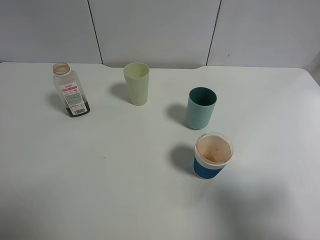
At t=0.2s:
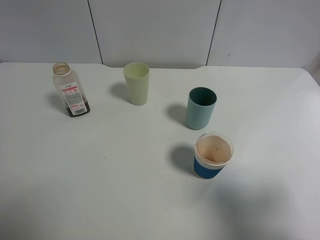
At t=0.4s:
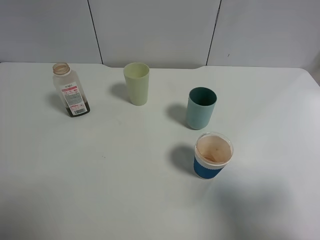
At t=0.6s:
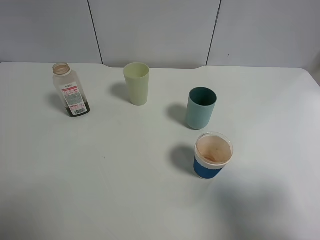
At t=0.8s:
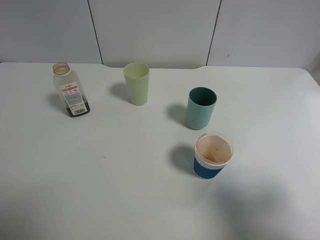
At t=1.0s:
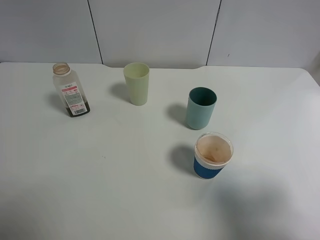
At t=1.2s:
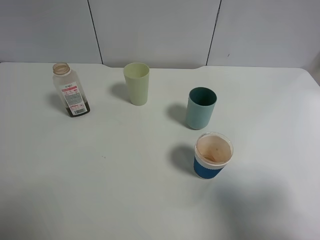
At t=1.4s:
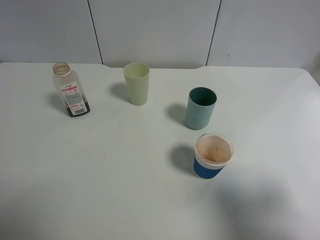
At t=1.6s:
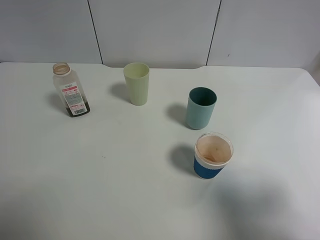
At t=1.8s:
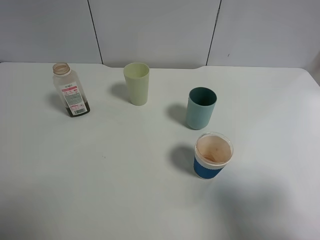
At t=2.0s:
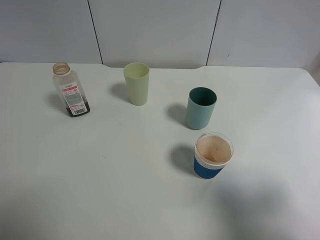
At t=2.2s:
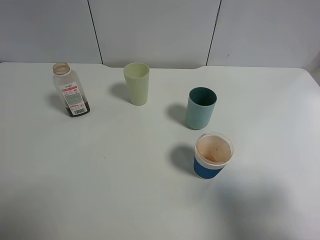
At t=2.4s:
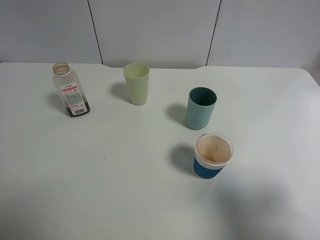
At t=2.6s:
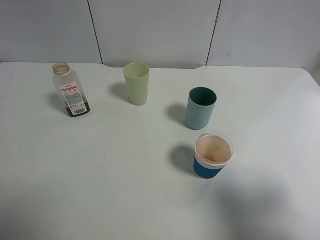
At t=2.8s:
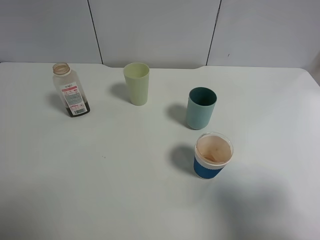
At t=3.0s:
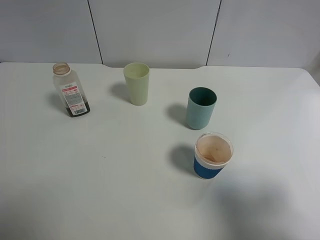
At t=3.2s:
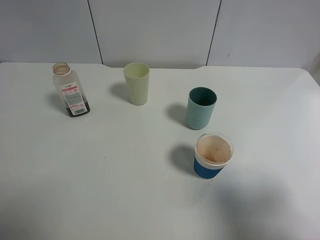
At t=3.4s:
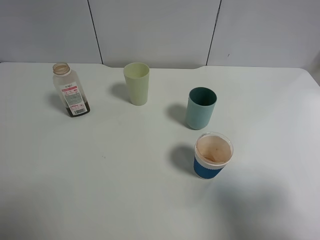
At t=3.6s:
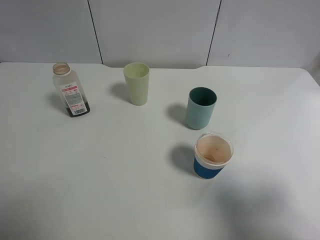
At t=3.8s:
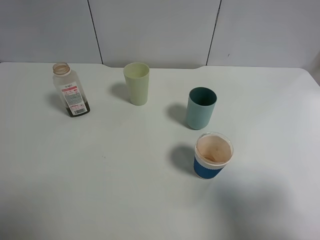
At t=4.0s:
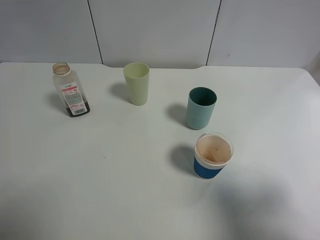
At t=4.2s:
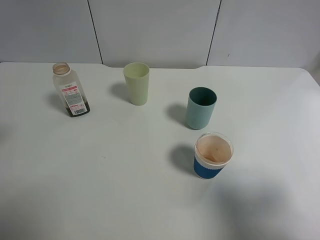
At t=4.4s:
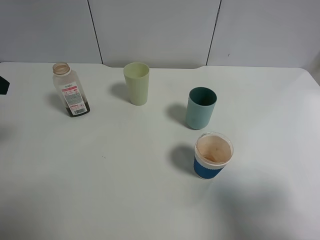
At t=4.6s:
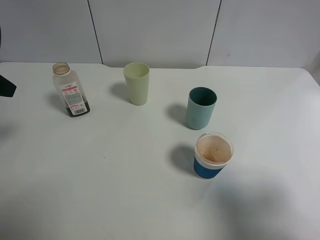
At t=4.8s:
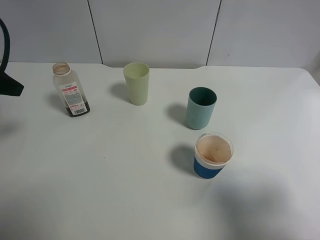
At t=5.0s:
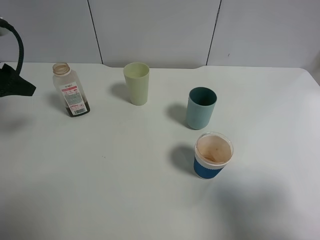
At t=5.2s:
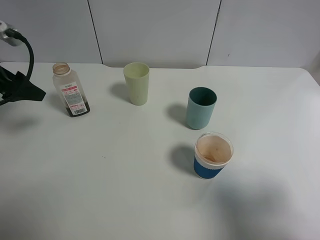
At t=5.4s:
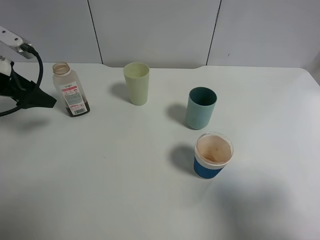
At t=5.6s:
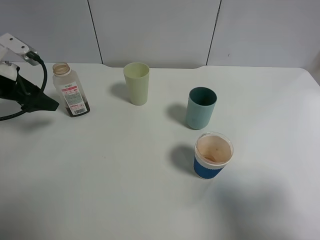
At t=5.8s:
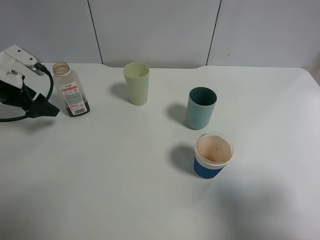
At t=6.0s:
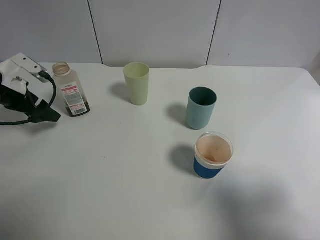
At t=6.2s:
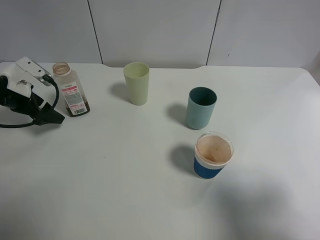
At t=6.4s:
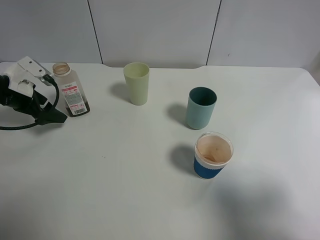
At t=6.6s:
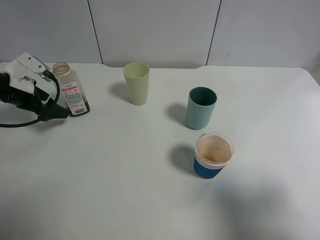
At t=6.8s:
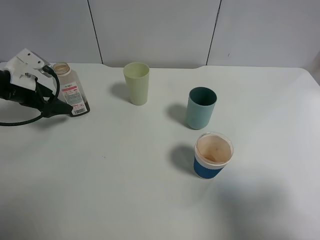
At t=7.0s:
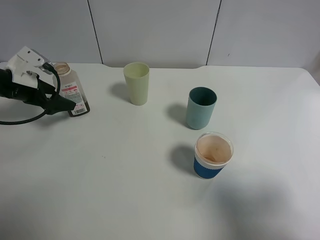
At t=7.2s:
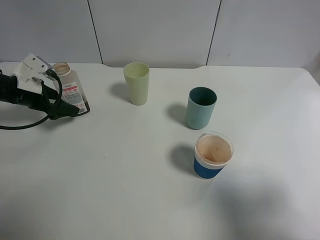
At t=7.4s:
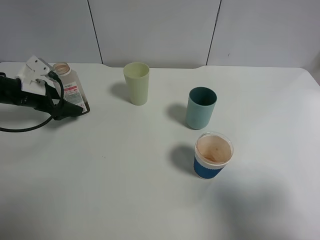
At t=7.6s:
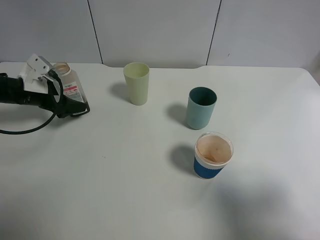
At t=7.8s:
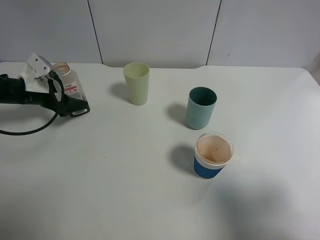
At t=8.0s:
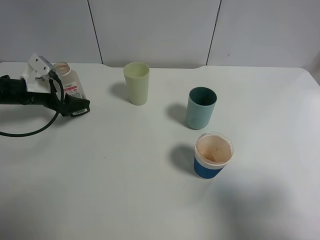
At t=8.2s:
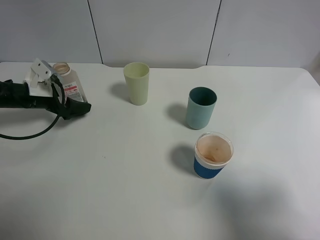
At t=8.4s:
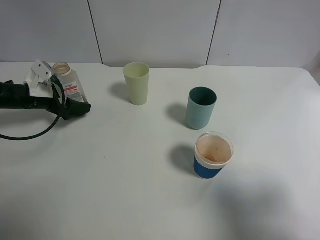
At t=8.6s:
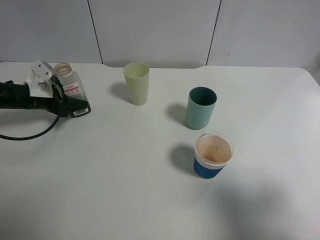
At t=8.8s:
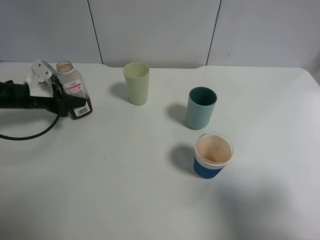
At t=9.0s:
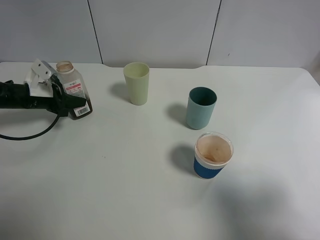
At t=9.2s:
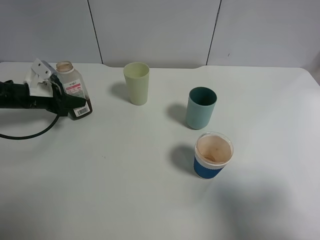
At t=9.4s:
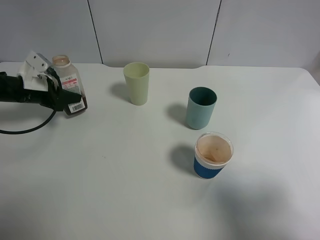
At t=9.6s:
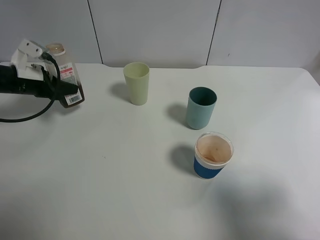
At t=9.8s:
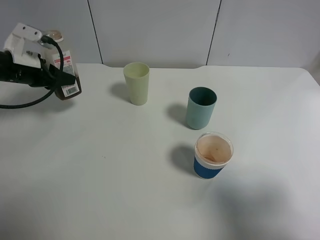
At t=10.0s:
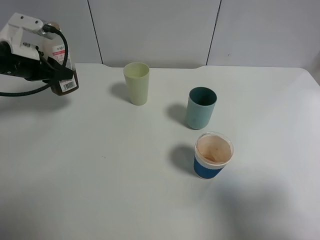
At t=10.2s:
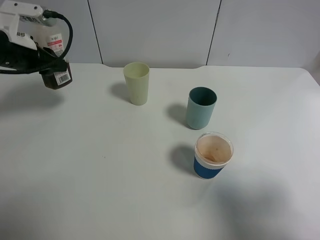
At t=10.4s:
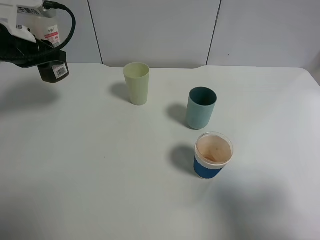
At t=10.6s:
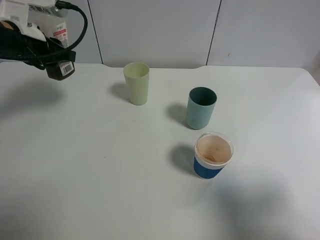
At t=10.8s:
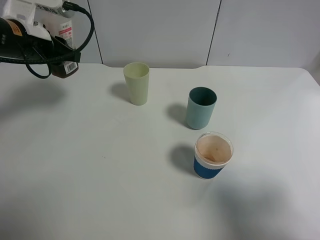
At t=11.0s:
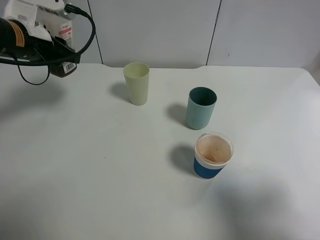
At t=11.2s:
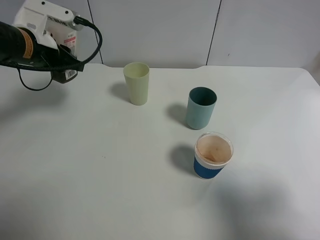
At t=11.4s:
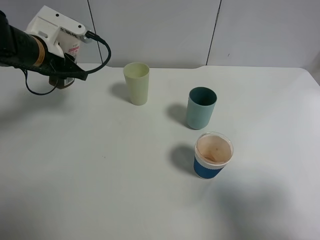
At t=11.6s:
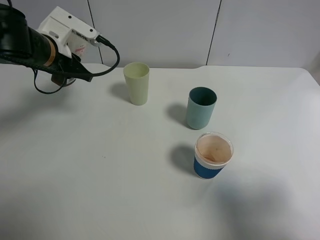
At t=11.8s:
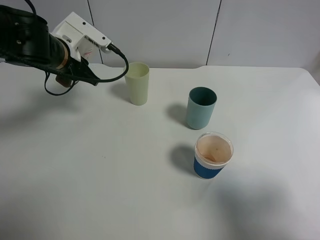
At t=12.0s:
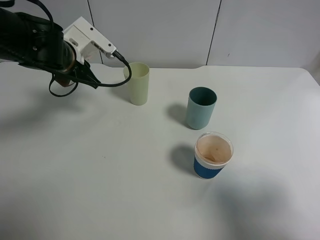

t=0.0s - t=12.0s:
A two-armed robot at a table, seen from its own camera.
Task of the whole recording: use a gripper to hold the bottle of the drink and pour it into a random cup.
Step, t=0.0s - t=9.0s: Grasp the cranberry juice bottle with the left gripper.
t=0.0s - t=3.0s: Both grippers stay about where they are.
t=4.4s - t=6.0s: The left gripper shifts roughly 20 cm downward and forward.
t=6.0s - t=7.6s: The left gripper shifts by some 5 cm.
t=7.6s - t=9.0s: The left gripper closes its fingers.
t=9.0s - t=10.4s: The left gripper travels upward by roughly 15 cm.
t=10.4s - t=12.0s: The left gripper heads to the right, covering about 10 cm.

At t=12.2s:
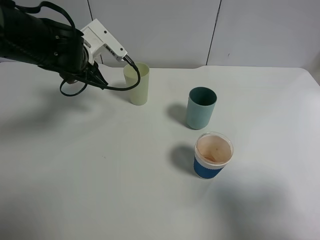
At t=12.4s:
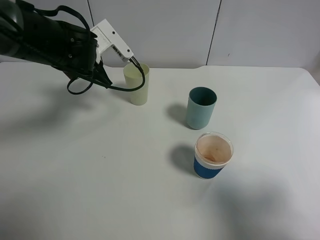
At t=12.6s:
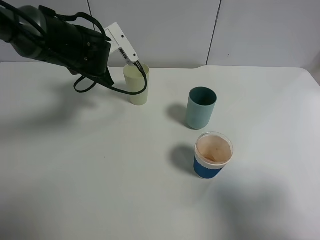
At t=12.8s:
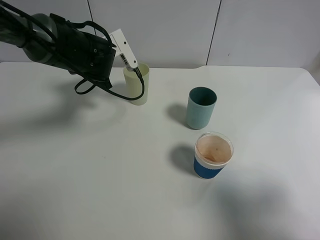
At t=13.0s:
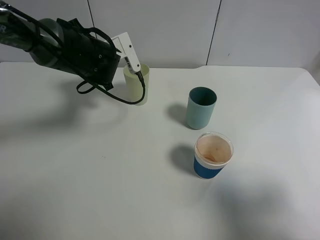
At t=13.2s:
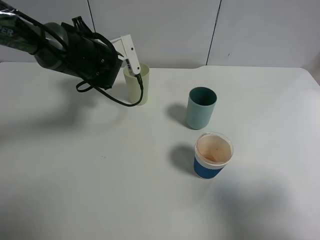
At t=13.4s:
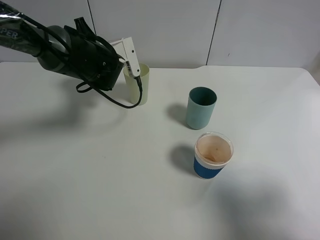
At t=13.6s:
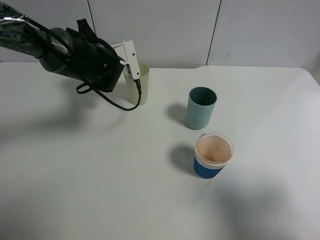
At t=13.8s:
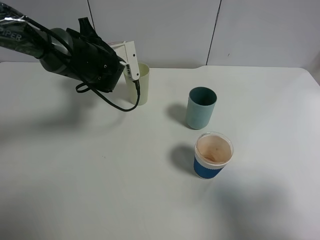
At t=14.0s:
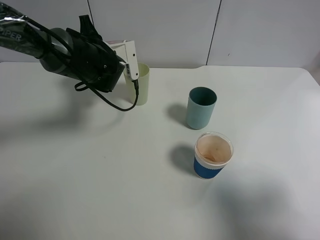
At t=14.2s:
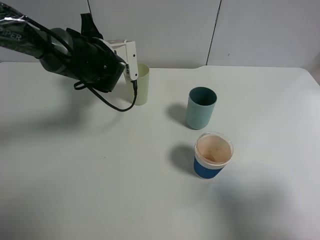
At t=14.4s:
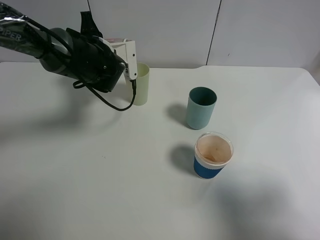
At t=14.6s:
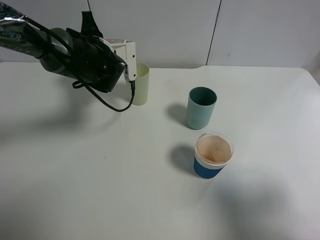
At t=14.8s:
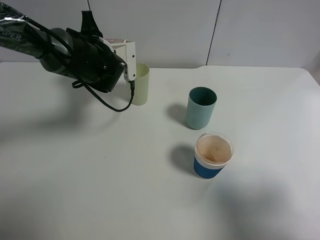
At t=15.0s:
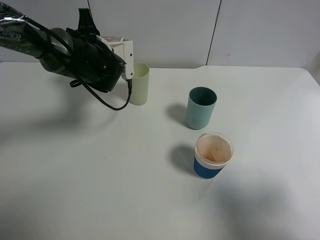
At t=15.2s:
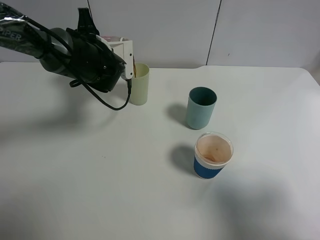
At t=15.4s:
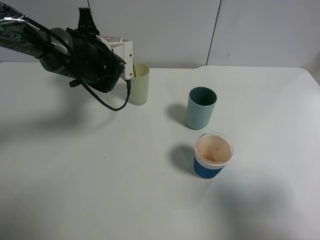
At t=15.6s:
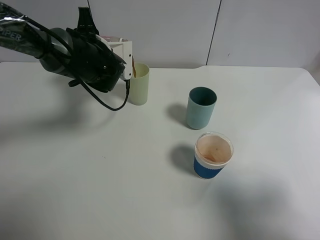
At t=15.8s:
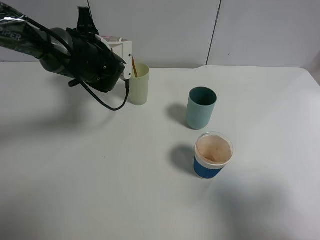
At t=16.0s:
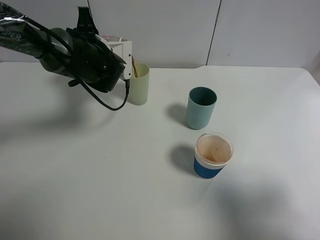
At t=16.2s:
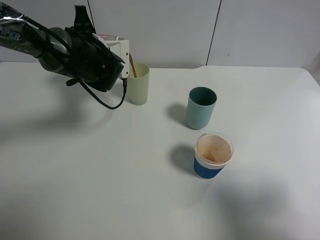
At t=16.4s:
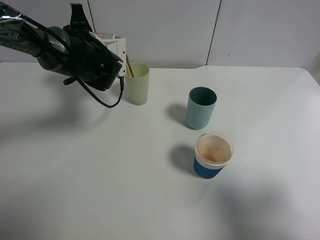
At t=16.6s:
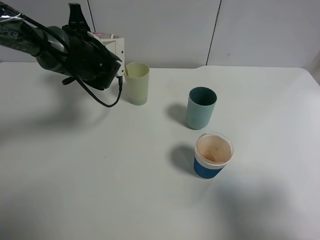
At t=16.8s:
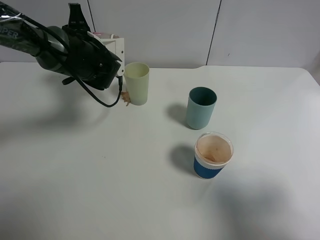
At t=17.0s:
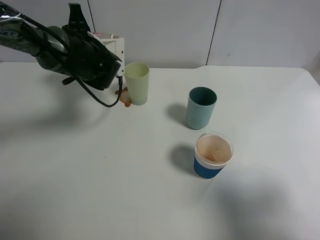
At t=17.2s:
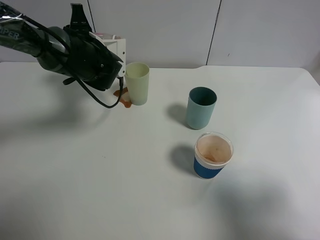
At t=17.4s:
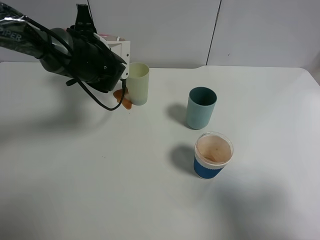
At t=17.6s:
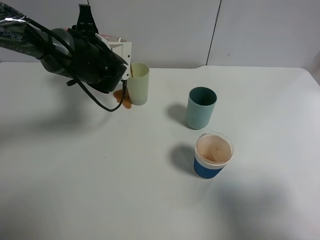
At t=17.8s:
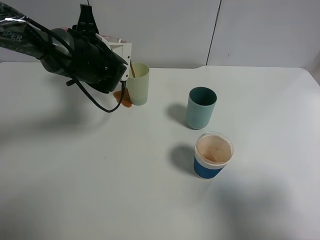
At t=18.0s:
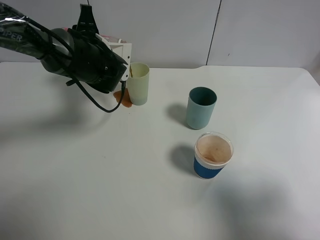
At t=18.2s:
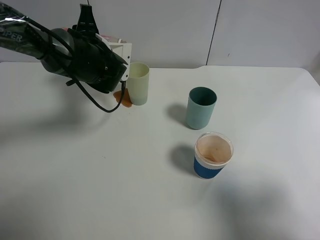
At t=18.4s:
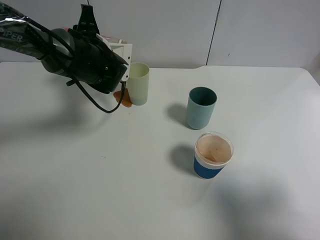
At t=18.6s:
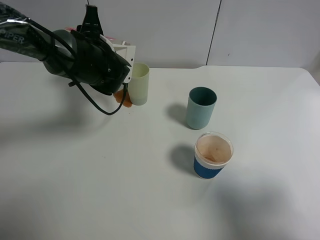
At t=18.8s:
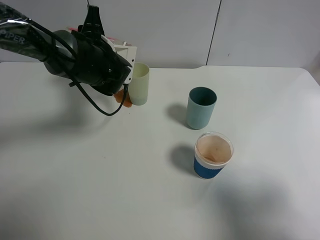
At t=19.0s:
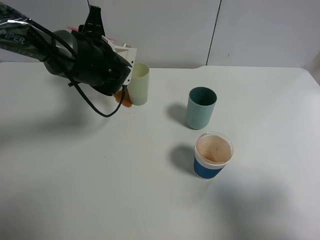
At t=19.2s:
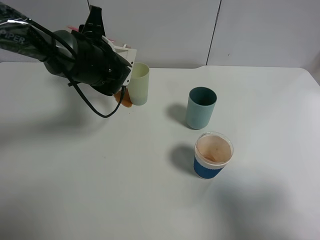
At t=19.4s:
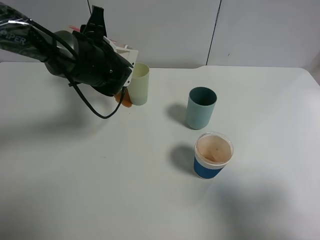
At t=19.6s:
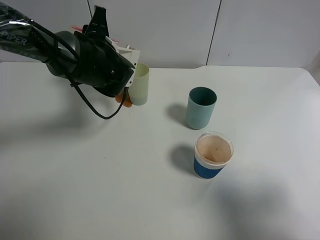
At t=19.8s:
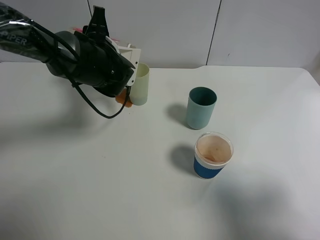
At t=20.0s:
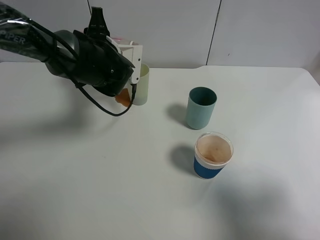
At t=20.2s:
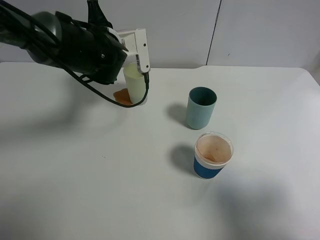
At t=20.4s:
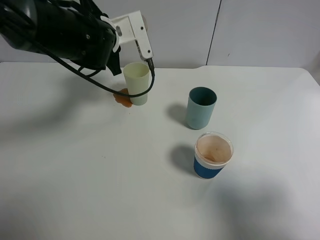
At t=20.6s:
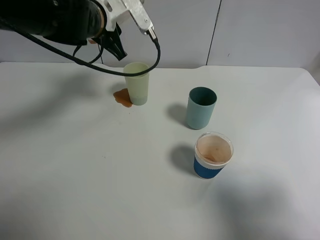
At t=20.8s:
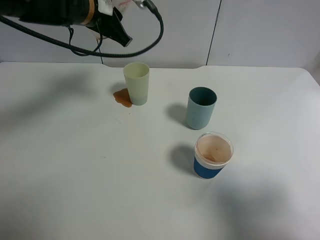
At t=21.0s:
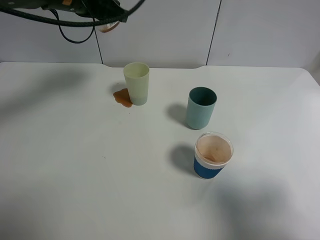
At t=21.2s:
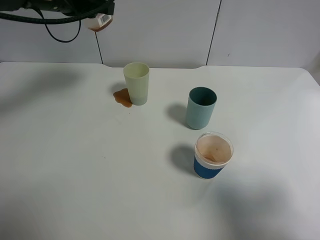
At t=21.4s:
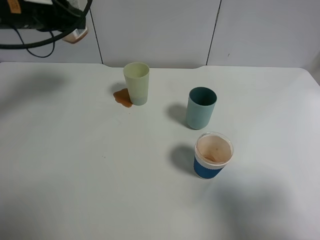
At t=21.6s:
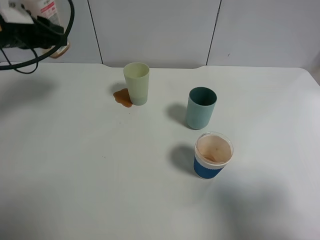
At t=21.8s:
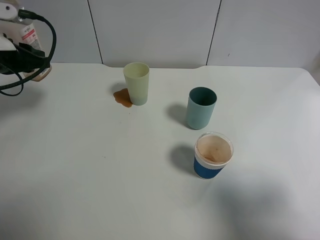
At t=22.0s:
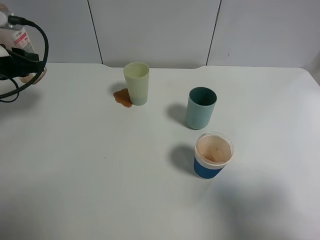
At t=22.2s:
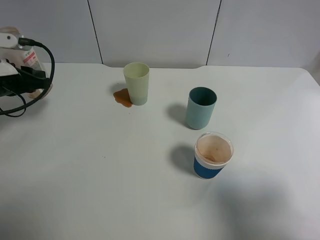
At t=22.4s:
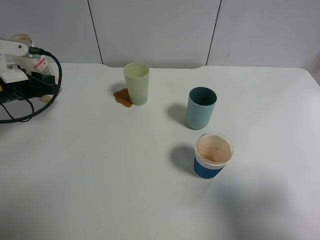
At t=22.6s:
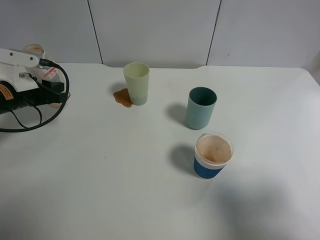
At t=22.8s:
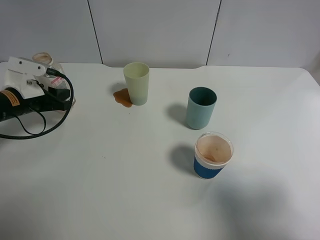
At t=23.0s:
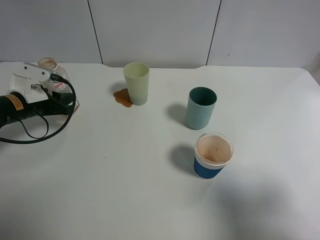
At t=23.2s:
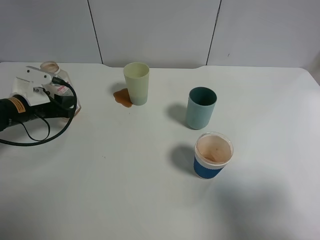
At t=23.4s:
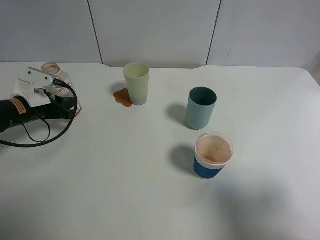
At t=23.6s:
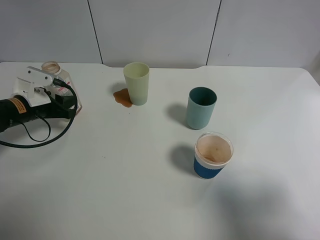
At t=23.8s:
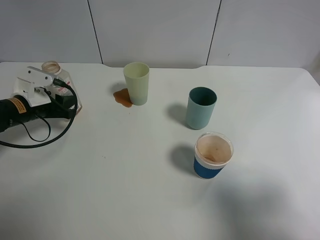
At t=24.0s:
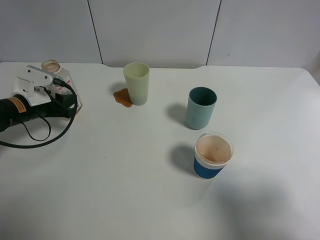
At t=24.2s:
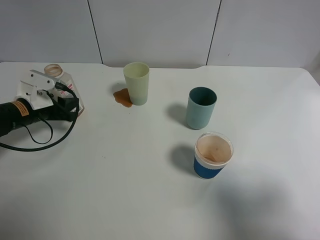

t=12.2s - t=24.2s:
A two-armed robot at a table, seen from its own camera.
Task of the whole recording: use a gripper to hold the bottle of the drink and pour it into a random cup.
Step, t=12.2s - t=20.4s: Pour the cranberry juice into the White Plastic Cup with the left gripper.
t=12.2s - t=13.8s: The left gripper moves roughly 5 cm.
t=13.8s - t=18.2s: The grippers make only small movements.
t=18.2s - t=19.8s: The grippers make only small movements.
t=19.8s - t=21.2s: The left gripper shifts some 15 cm upward and to the left.
t=21.2s - t=22.6s: The left gripper travels downward and to the left by approximately 20 cm.
t=22.6s - t=24.2s: There are only small adjustments of the grippers.
